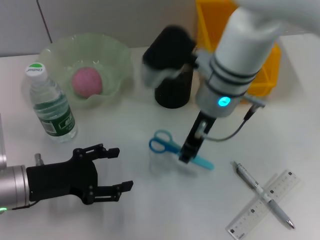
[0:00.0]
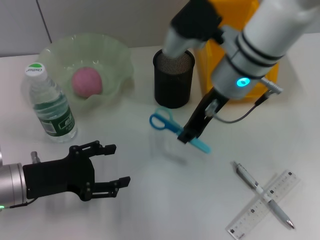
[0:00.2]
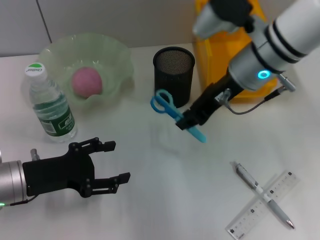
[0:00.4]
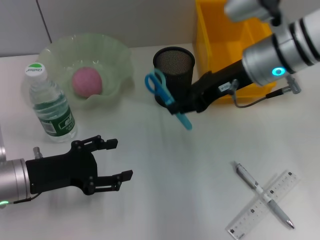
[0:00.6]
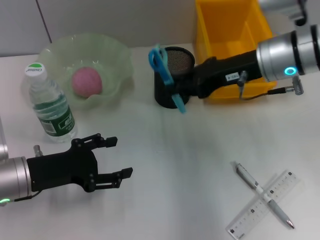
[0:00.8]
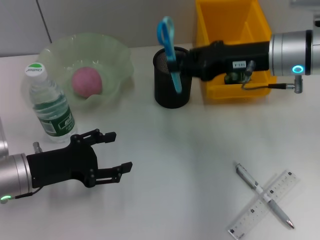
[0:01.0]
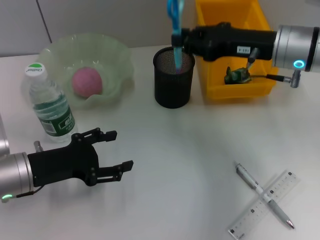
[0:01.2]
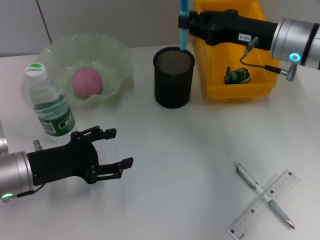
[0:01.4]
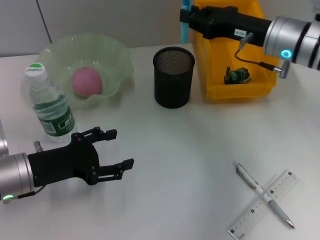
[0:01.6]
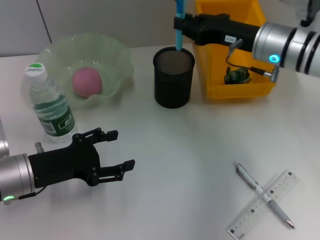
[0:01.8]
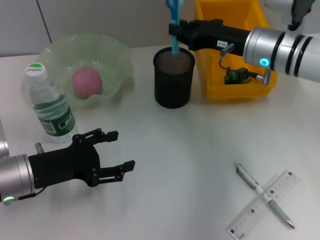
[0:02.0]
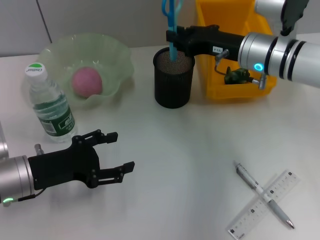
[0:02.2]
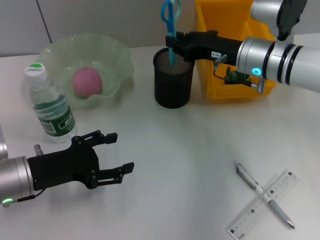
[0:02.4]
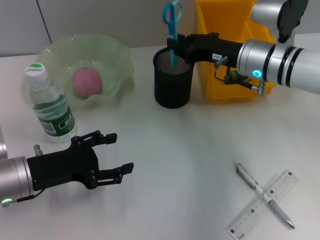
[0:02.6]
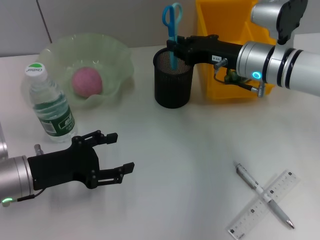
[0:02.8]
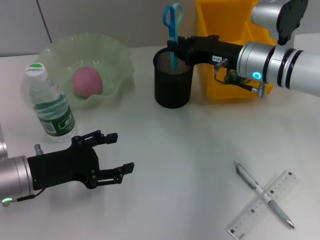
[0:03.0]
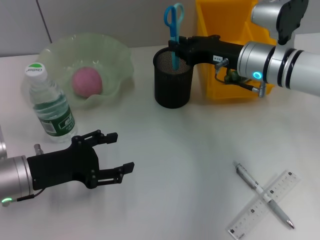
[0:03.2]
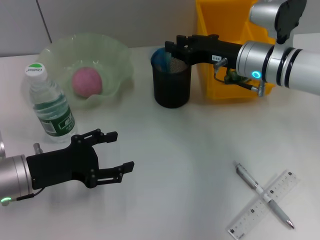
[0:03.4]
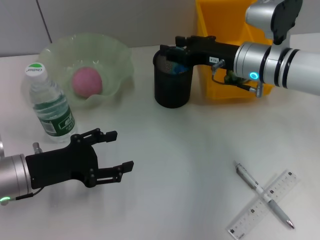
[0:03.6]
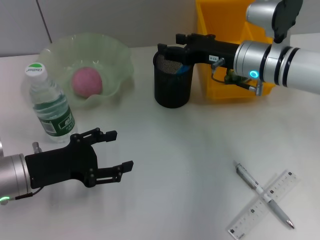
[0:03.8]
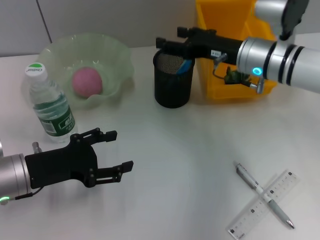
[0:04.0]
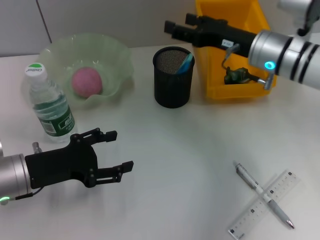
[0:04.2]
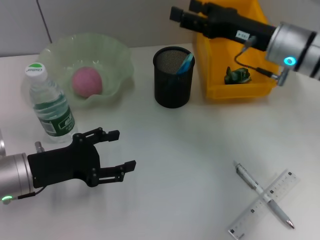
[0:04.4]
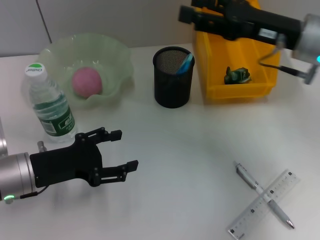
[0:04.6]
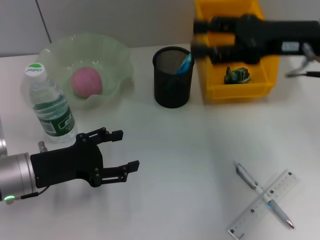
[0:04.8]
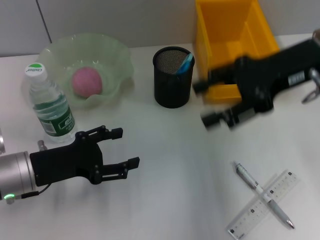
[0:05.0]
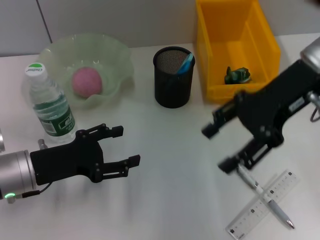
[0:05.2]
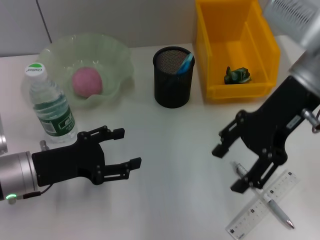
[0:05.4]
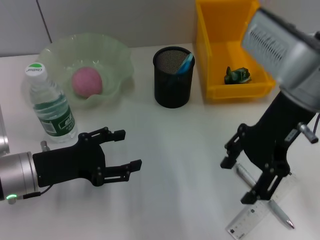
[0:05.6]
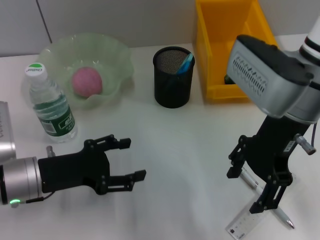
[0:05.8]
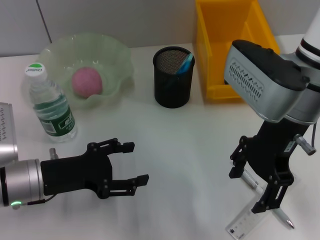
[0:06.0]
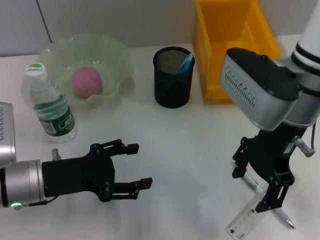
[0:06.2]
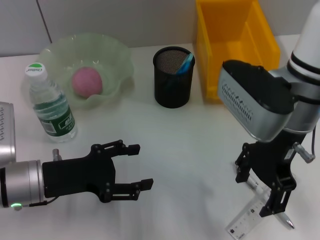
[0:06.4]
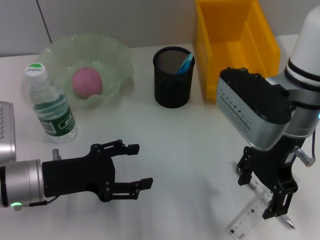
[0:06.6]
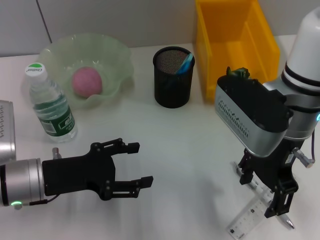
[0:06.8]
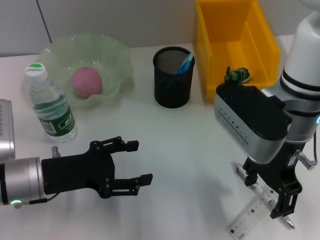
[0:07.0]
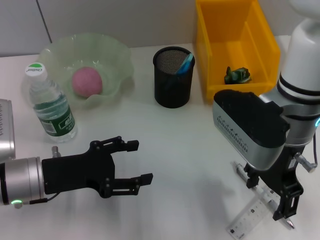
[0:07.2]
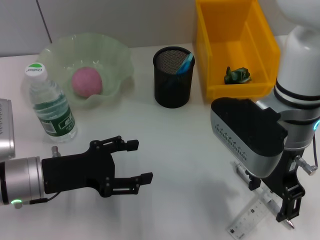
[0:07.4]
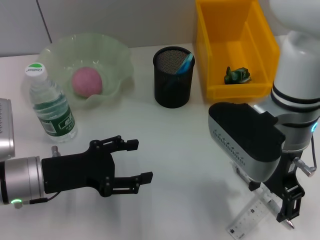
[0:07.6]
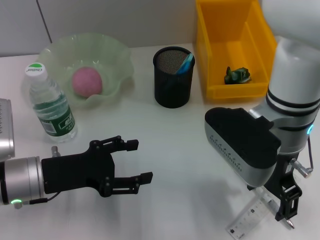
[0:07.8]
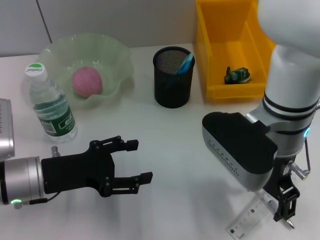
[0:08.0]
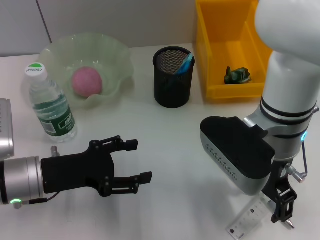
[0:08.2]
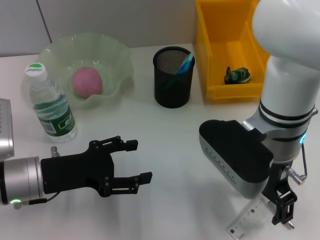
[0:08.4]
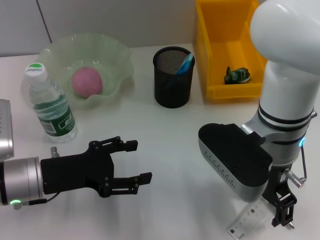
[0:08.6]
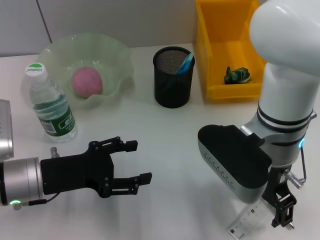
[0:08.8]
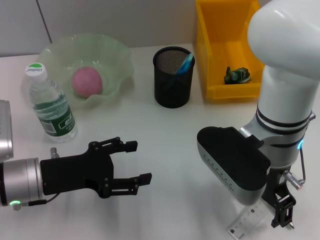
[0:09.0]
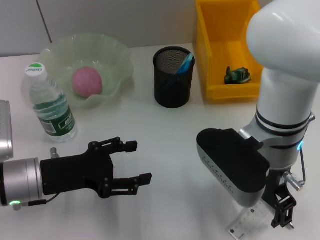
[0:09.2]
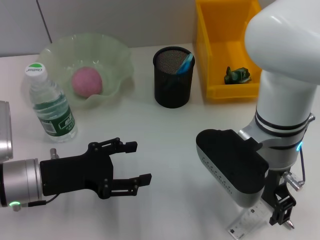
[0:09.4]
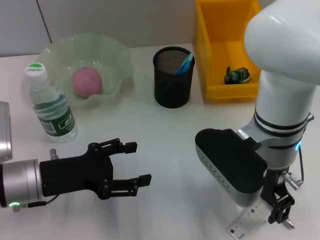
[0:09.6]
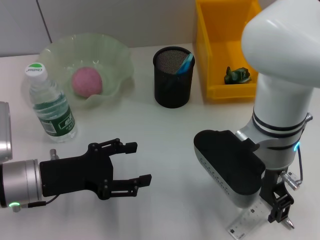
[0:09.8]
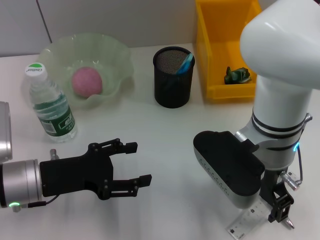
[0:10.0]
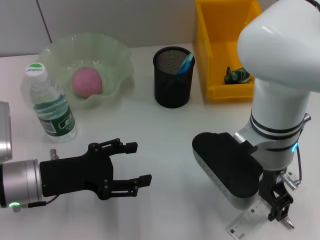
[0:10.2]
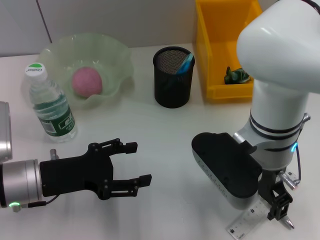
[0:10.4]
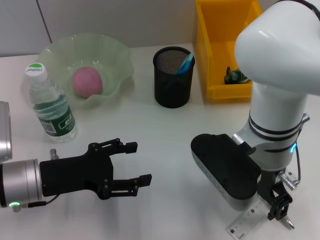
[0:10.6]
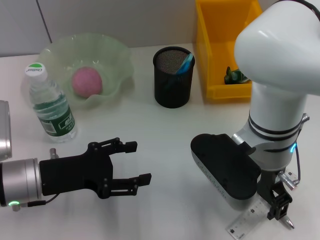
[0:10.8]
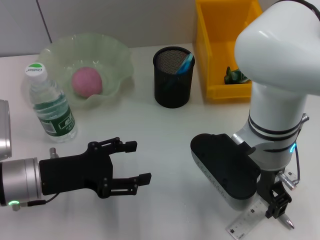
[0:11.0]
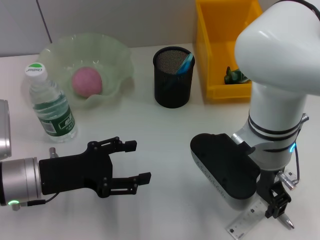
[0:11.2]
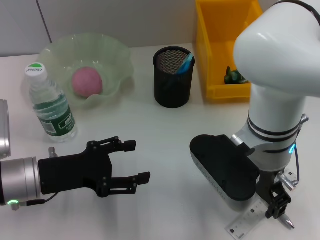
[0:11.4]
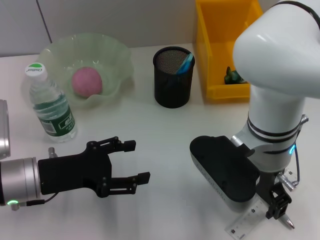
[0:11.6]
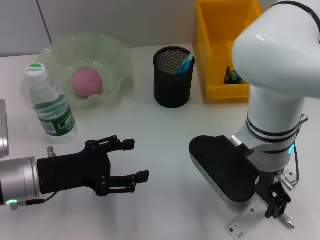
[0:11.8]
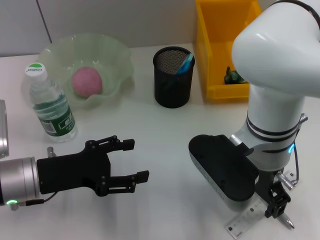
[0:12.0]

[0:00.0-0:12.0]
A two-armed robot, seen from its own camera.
Step, 0:00.0 to 0:03.4: Place the blue scissors into the pen holder with the right hand.
0:00.0 to 0:01.6: The right gripper goes roughly 15 cm to the right.
0:01.6 to 0:03.0: The grippers move only a little.
0:03.0 to 0:04.4: The right gripper ends up some 5 cm from where it was, and opens up.
0:04.4 to 0:06.0: The right gripper moves to the left and backward, about 10 cm.
0:06.0 to 0:07.6: The grippers stay close to where they were, moving slightly.
0:09.0 to 0:10.4: The two grippers keep their place.
0:10.4 to 0:12.0: Both grippers stay about where they are.

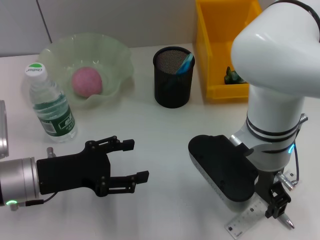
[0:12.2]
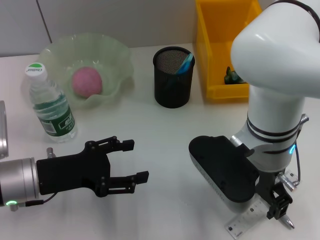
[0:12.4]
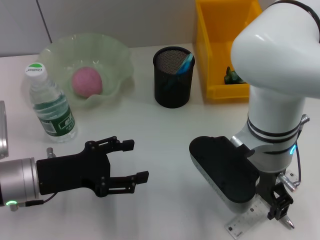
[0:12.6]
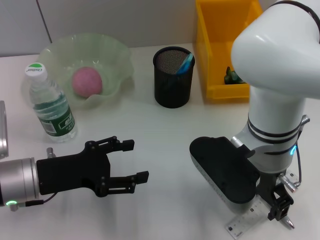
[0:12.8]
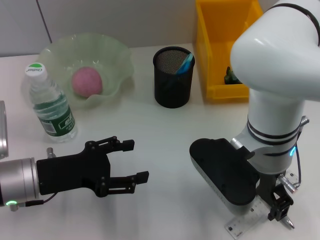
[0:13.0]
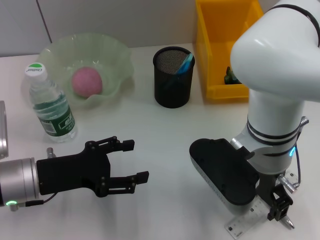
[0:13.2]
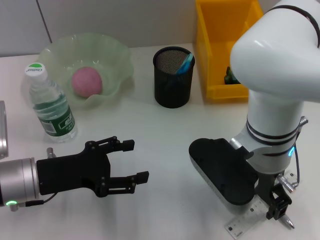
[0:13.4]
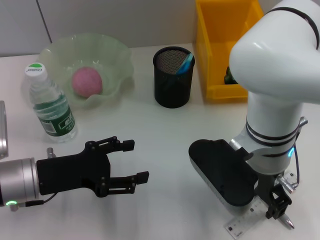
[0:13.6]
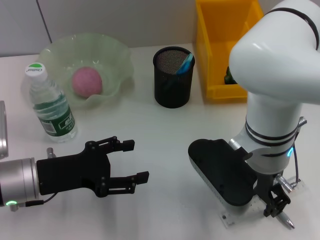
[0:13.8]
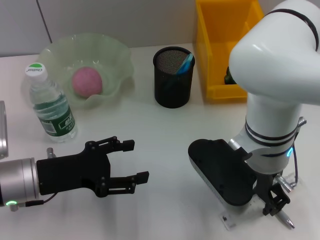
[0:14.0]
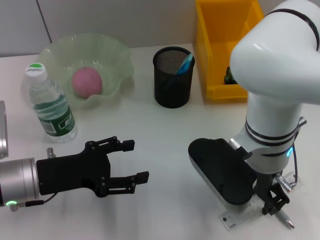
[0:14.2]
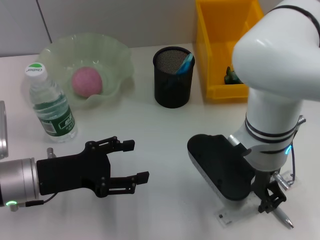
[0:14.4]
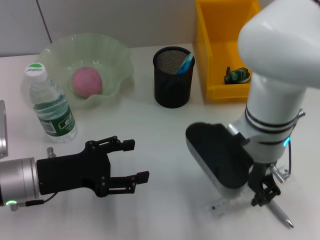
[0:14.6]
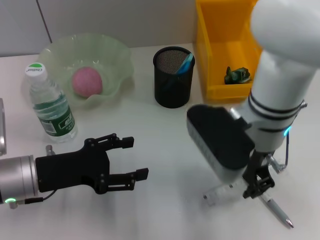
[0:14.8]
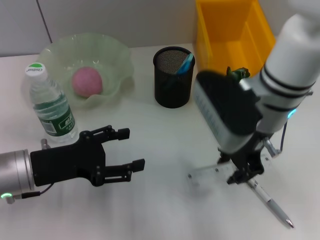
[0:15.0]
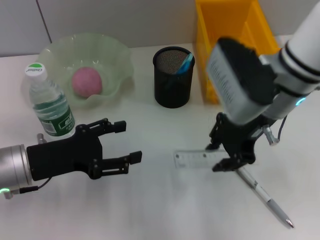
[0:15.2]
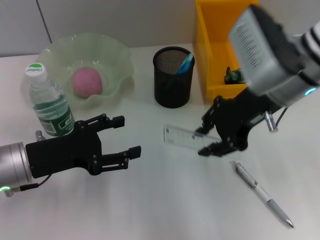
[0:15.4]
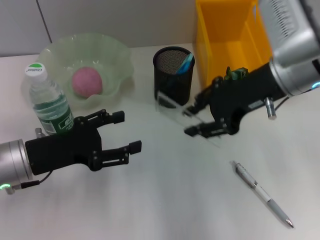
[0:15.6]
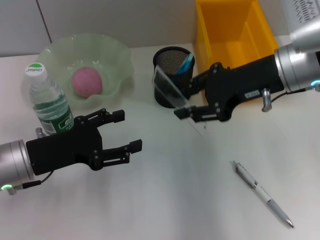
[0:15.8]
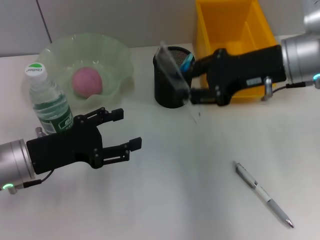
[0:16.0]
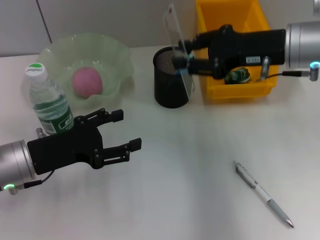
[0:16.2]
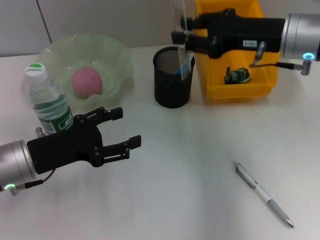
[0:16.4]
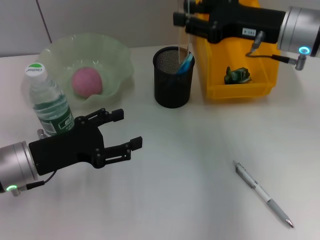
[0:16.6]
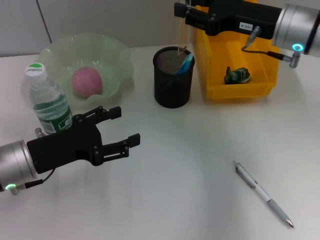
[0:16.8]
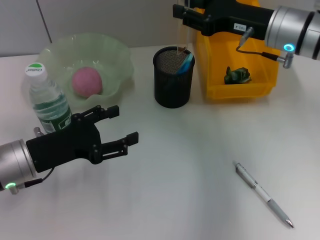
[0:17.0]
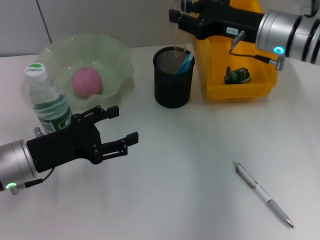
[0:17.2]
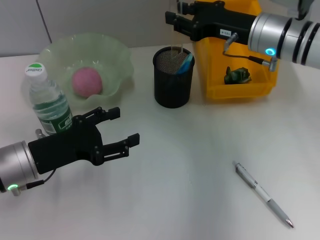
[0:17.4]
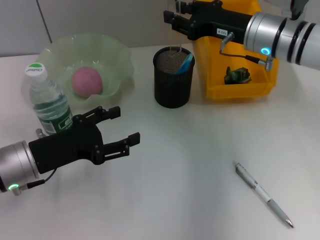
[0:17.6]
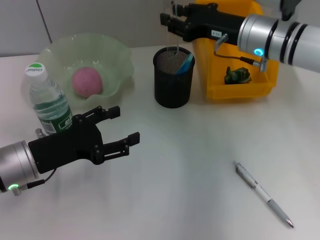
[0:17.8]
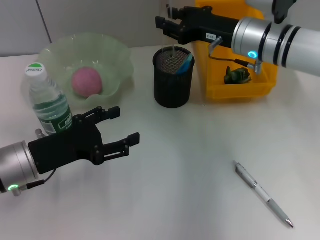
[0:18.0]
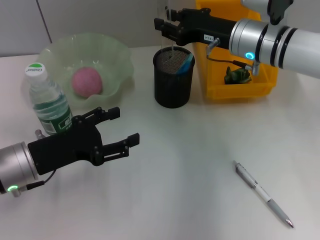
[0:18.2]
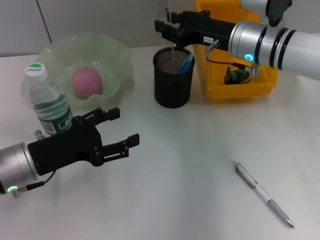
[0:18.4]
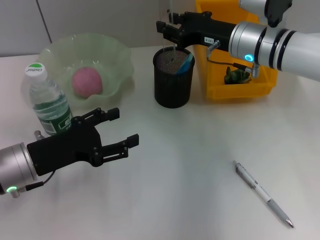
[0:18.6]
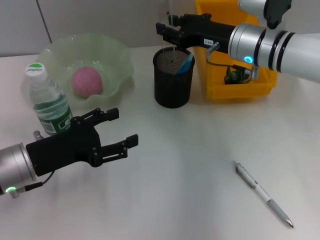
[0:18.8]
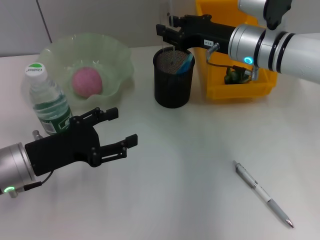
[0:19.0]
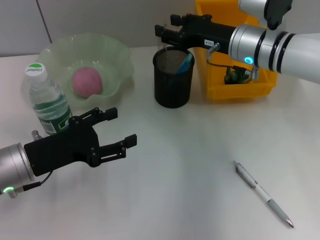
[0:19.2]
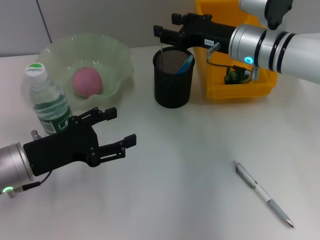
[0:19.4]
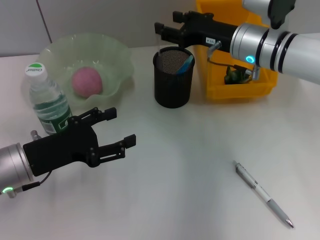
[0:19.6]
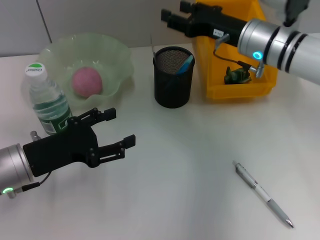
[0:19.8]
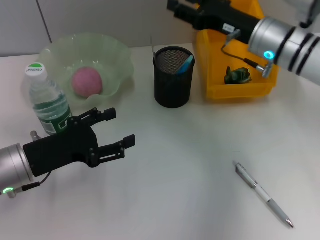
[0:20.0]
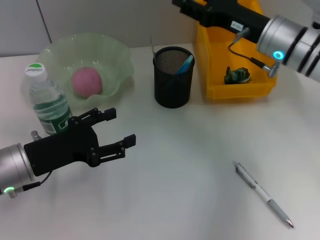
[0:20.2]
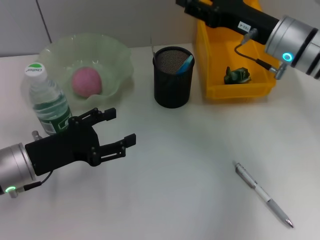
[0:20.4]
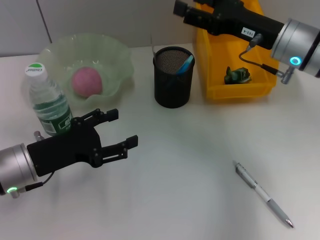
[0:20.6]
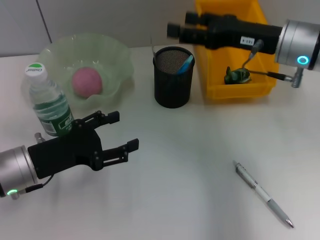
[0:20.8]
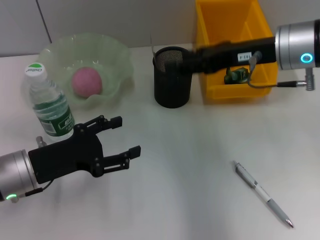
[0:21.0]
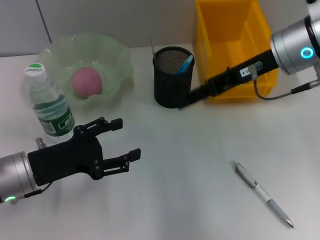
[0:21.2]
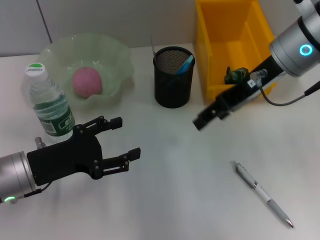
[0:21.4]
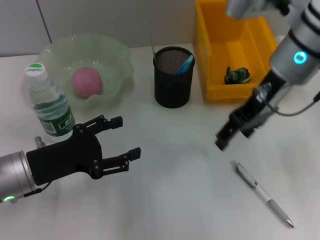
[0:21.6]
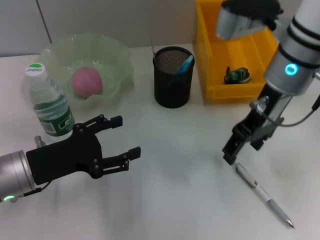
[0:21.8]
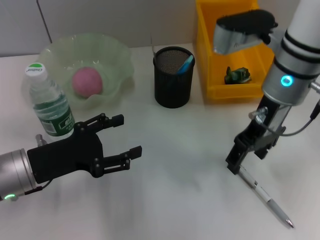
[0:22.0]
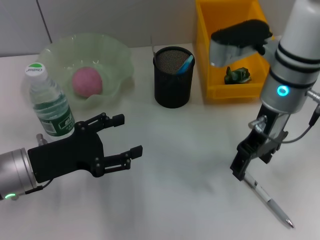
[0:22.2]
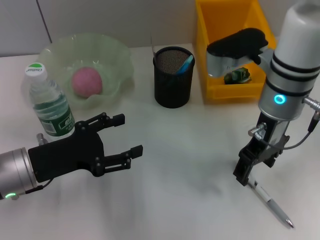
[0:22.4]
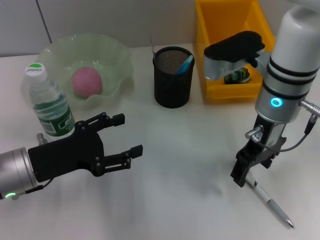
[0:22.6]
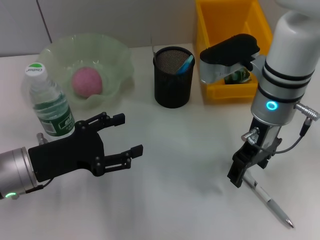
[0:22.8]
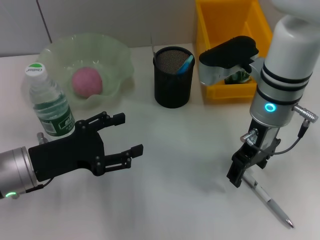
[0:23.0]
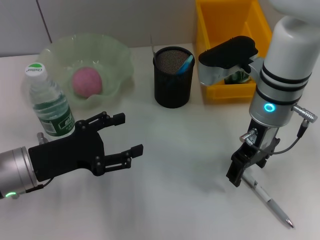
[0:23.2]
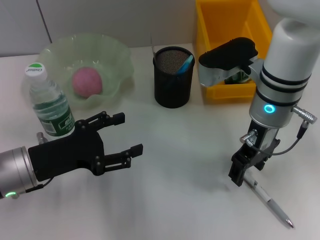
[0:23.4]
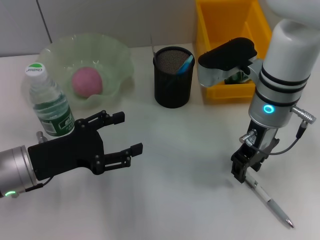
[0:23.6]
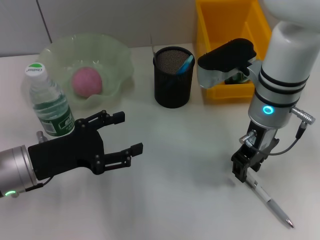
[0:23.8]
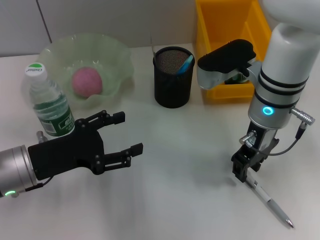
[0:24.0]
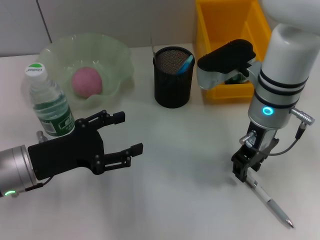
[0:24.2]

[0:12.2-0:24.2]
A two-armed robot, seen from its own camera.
Step, 0:14.2 to 0:19.8: Place the ruler into the pen holder with the right hand.
0:12.2 to 0:13.8: Neither gripper changes place.
0:13.8 to 0:15.2: The right gripper is displaced upward by some 5 cm.
0:15.2 to 0:16.6: The right gripper moves to the right, approximately 5 cm.
0:16.6 to 0:18.2: The right gripper ends up about 10 cm from where it was.
0:18.2 to 0:19.8: The grippers move only a little.
0:19.8 to 0:21.2: The right gripper shifts some 10 cm upward.
0:21.2 to 0:22.6: The right gripper moves downward, about 5 cm.
0:22.6 to 0:24.2: The right gripper closes its fingers.
